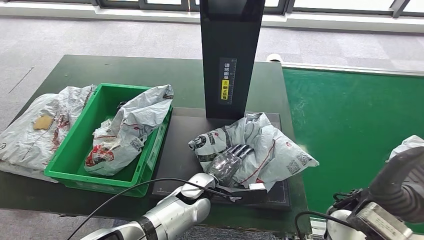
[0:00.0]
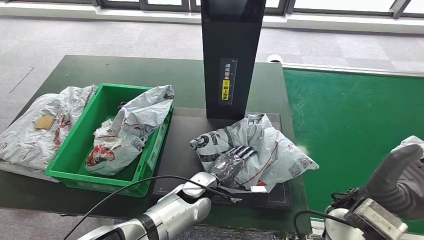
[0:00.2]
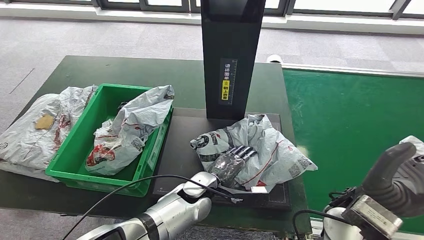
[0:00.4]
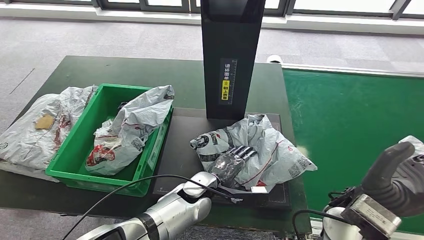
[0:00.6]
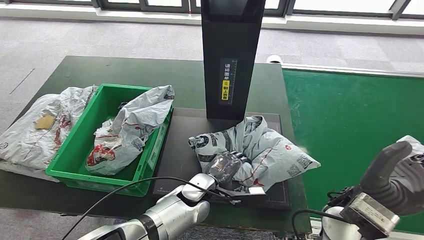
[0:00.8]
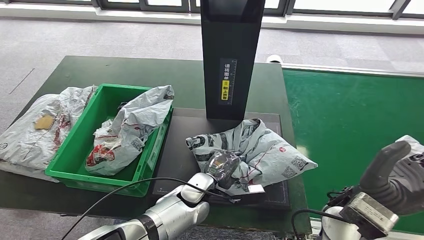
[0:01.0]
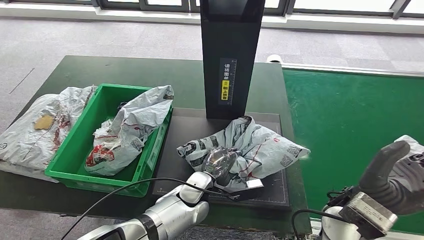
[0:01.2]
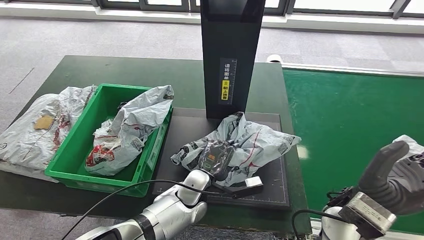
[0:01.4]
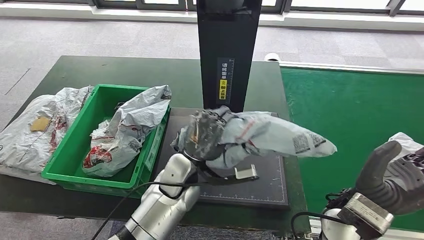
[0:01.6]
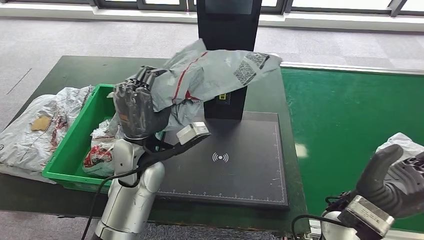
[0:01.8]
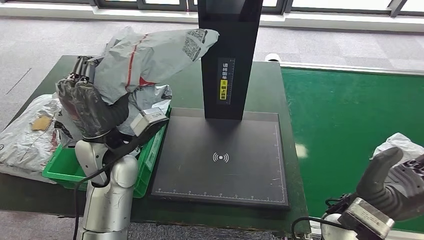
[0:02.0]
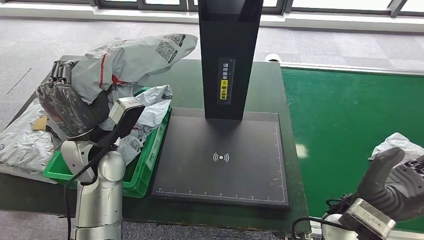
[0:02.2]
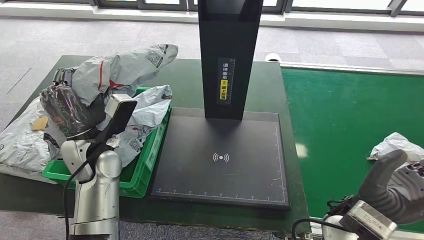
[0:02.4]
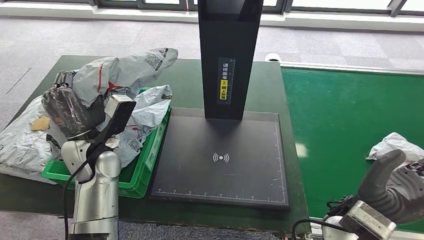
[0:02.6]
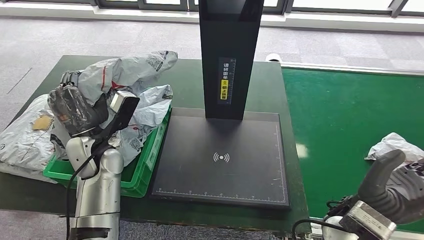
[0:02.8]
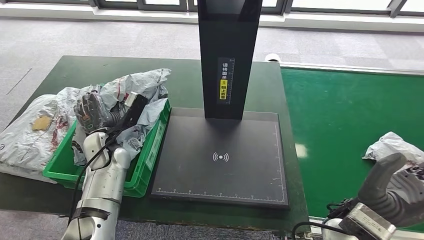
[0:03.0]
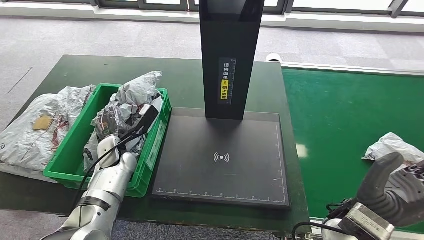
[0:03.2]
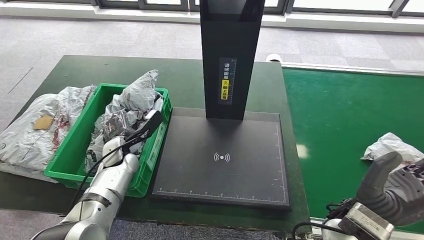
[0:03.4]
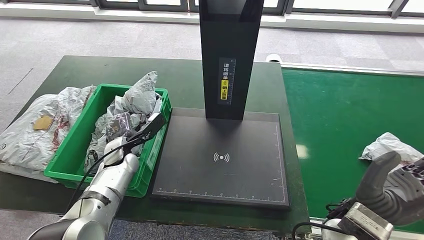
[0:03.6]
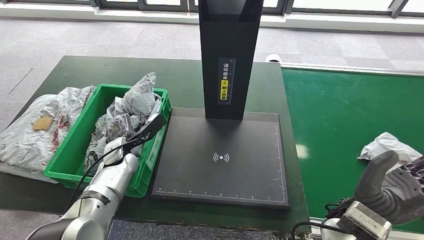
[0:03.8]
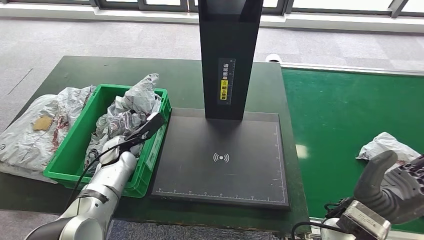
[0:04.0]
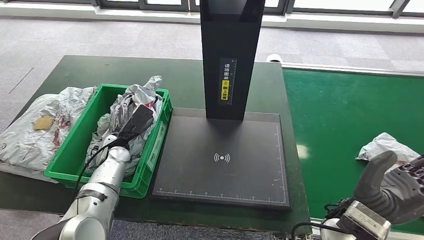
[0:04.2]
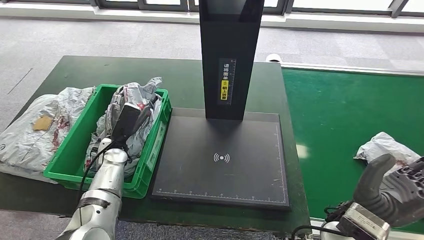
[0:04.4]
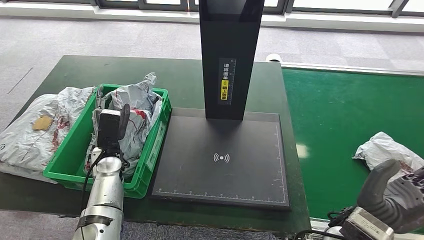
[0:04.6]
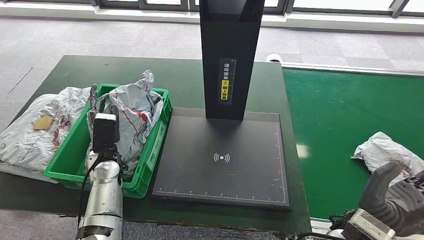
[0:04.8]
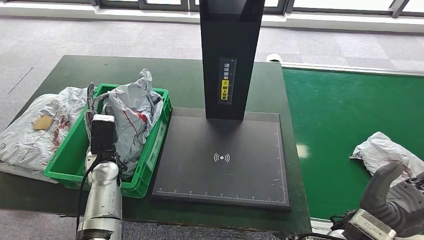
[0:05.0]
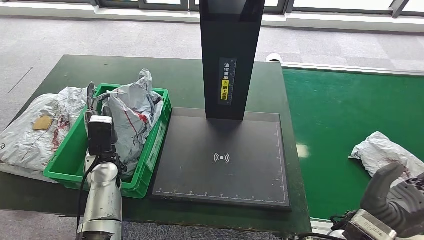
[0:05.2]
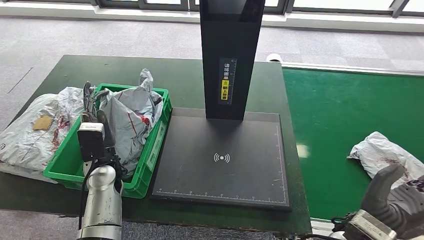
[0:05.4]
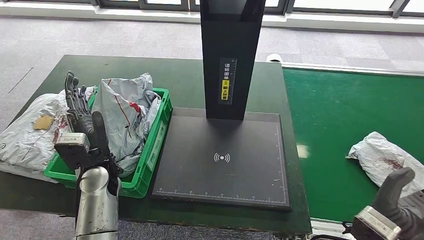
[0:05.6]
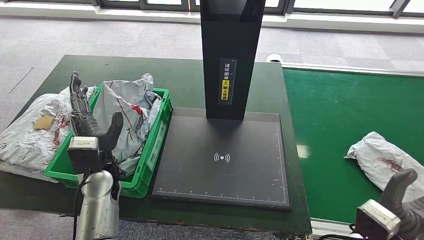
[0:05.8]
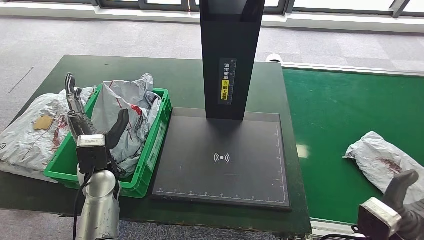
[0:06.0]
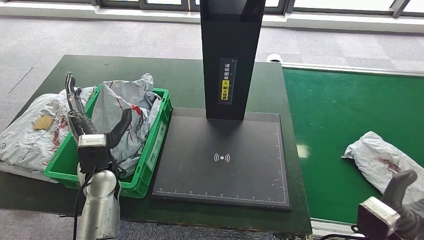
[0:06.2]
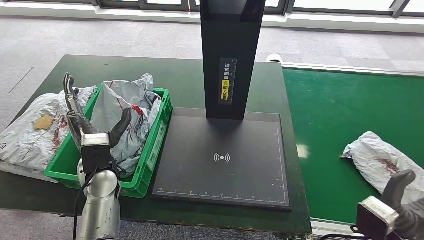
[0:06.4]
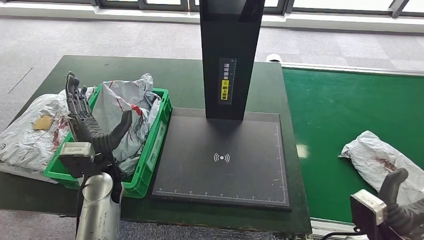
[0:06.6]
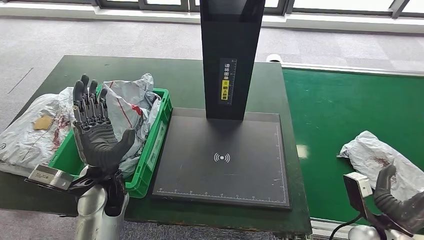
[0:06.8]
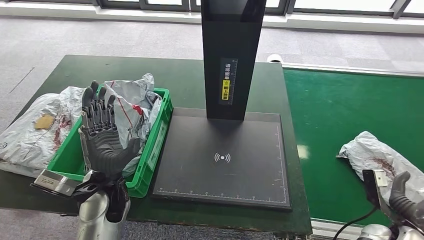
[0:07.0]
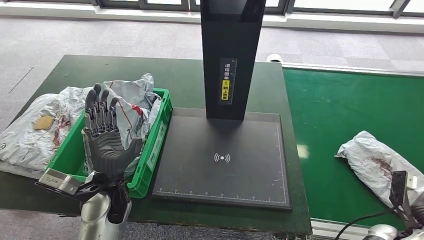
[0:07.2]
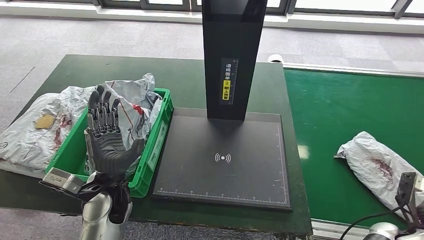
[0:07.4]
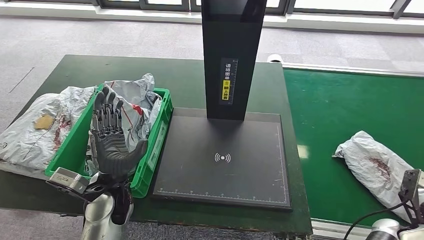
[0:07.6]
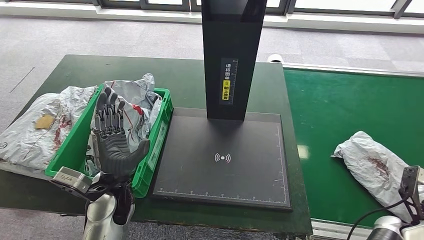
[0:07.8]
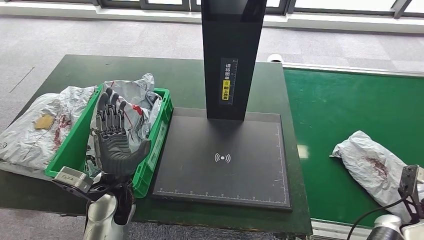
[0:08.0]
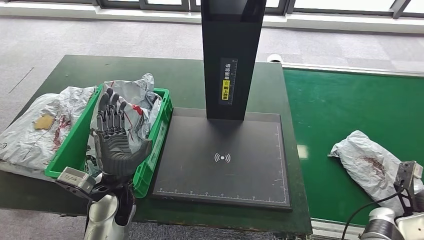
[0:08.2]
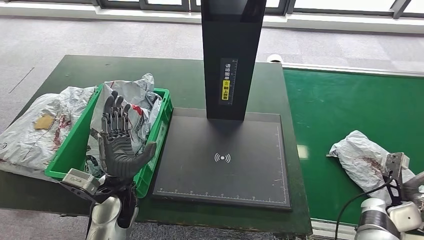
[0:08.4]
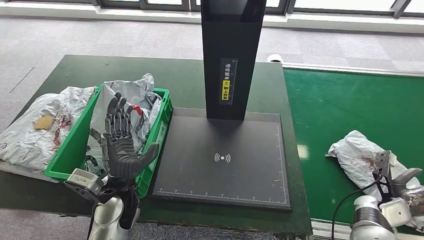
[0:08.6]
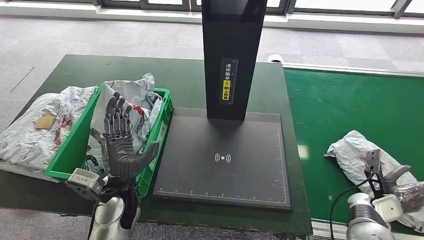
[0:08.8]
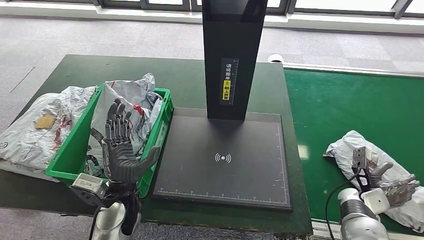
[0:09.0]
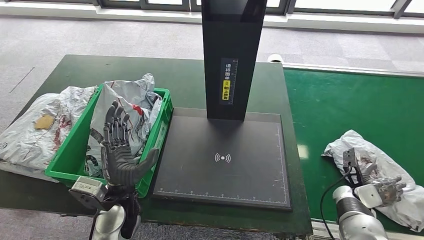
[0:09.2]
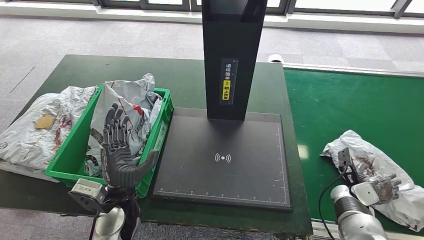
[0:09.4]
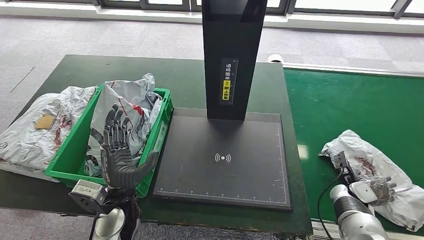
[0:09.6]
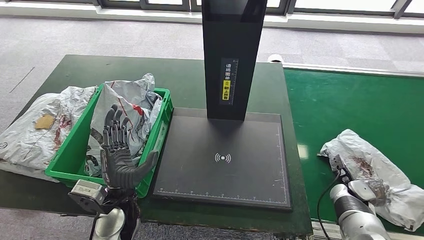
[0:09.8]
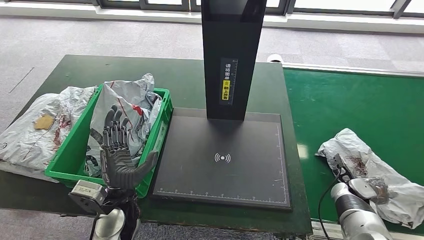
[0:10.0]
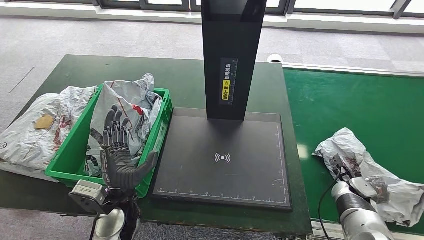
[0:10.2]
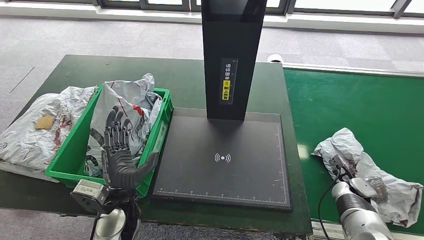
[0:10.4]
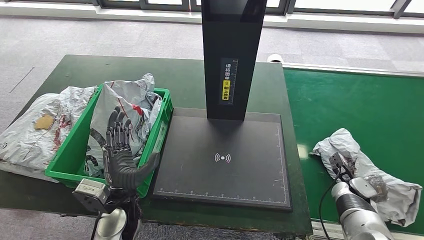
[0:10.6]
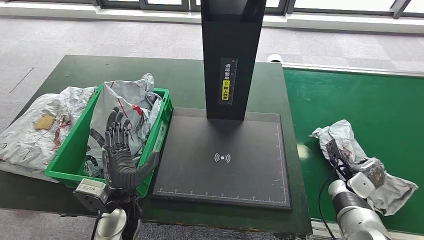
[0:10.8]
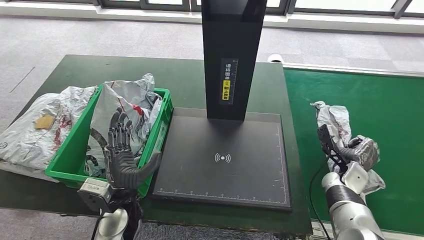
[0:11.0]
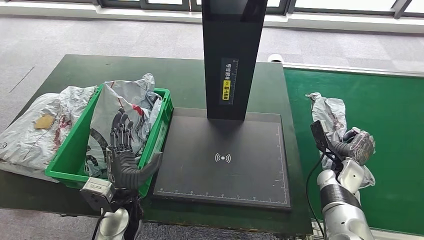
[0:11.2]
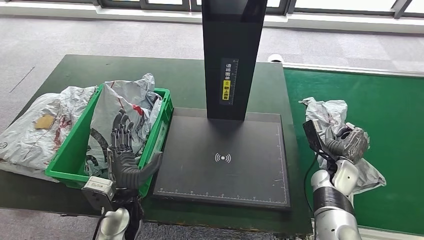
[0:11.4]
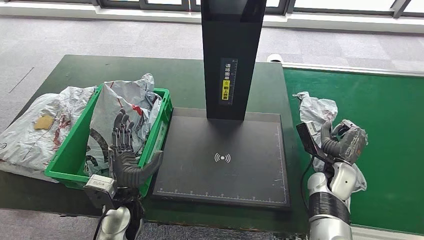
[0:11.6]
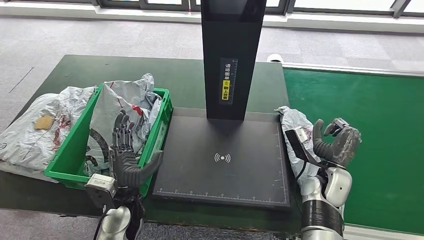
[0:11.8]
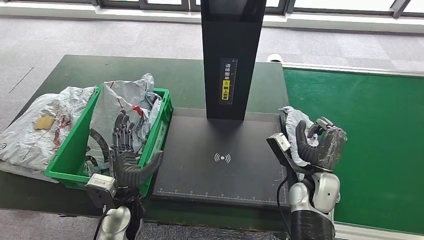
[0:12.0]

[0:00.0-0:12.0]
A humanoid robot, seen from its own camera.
Step, 0:00.0 to 0:02.0: Pick up the parcel from the inbound machine.
Step, 0:02.2 to 0:06.2: Place the parcel into the delivery box.
0:03.0 to 0:04.4: The left hand goes some 5 cm downward.
0:04.4 to 0:06.0: The right hand is displaced to the right by roughly 5 cm. Meanwhile the left hand travels backward and upward by approximately 10 cm.
0:06.0 to 0:07.6: The left hand shifts by some 5 cm. Meanwhile the right hand moves to the right and downward, some 20 cm.
0:07.6 to 0:09.0: The right hand heads forward and to the left, covering some 10 cm.
0:10.4 to 0:12.0: The right hand heads to the left and upward, covering about 20 cm.

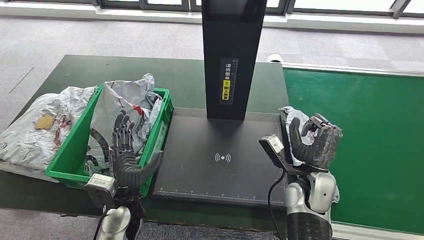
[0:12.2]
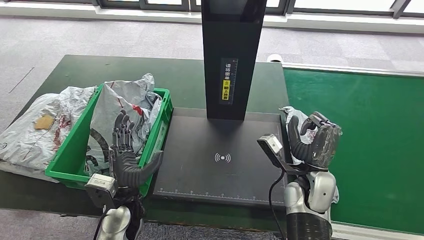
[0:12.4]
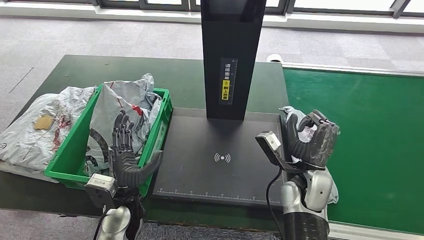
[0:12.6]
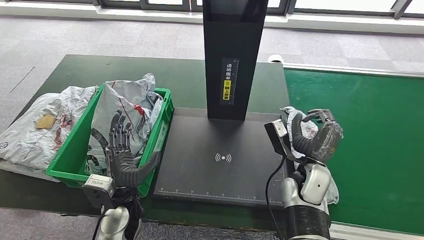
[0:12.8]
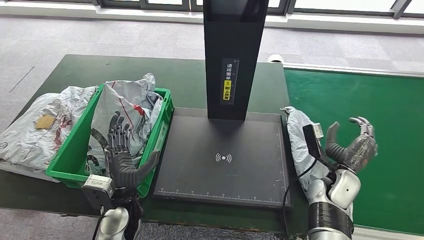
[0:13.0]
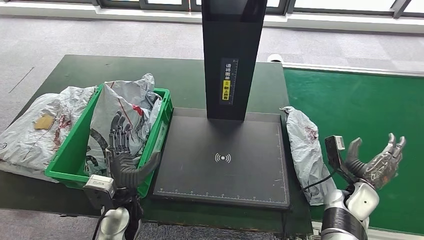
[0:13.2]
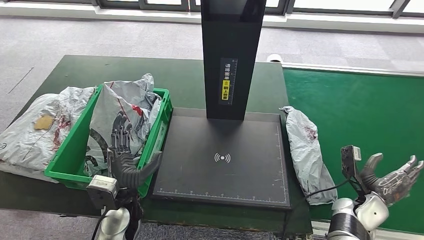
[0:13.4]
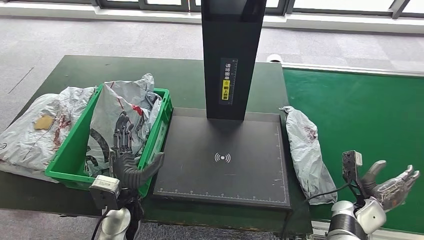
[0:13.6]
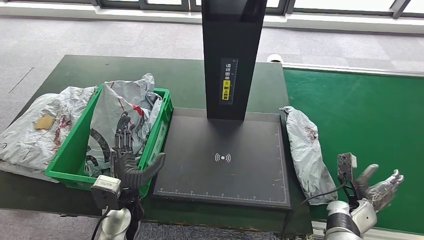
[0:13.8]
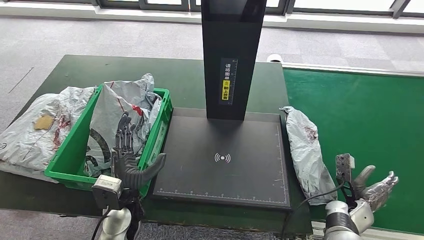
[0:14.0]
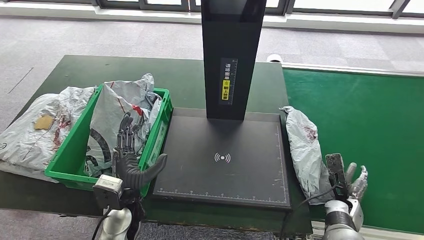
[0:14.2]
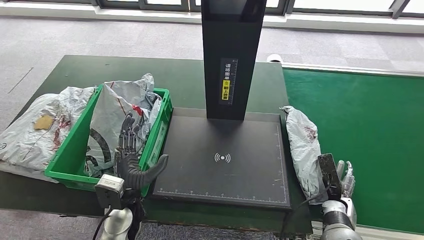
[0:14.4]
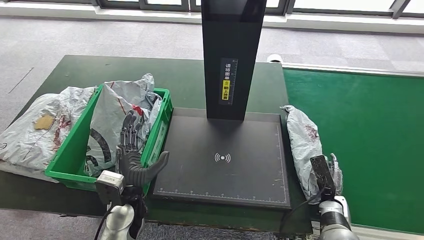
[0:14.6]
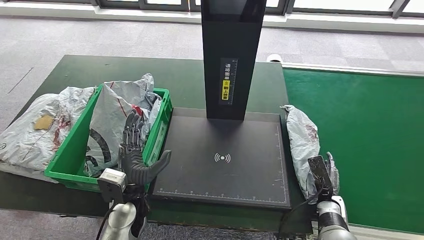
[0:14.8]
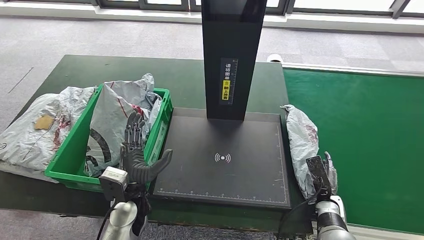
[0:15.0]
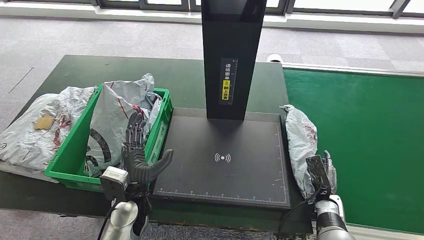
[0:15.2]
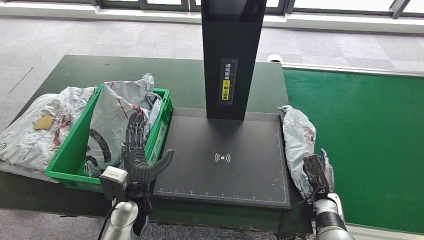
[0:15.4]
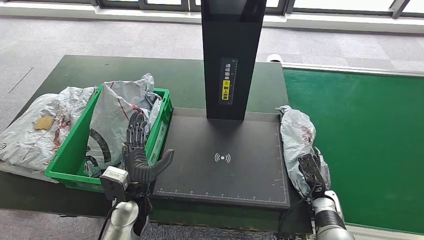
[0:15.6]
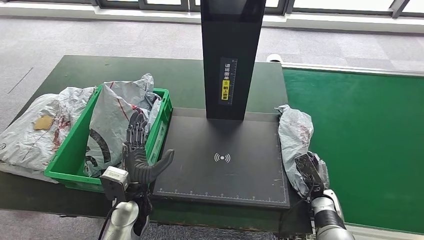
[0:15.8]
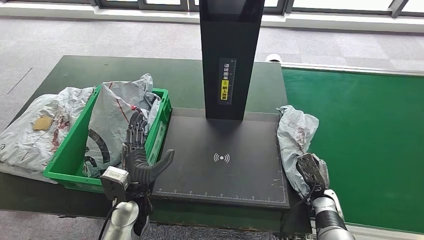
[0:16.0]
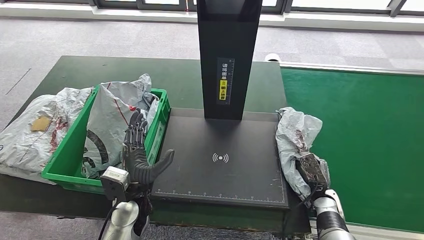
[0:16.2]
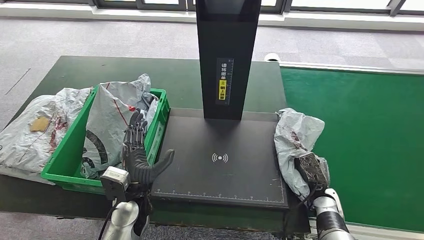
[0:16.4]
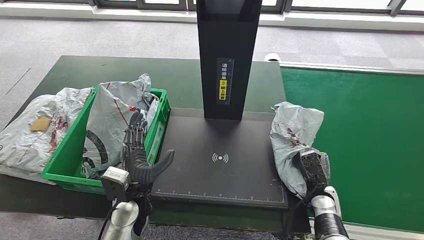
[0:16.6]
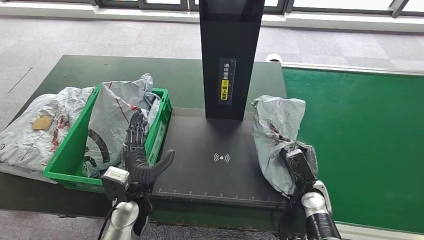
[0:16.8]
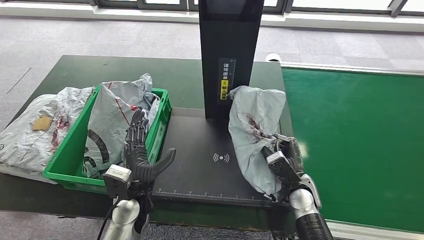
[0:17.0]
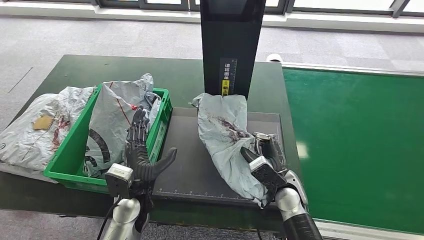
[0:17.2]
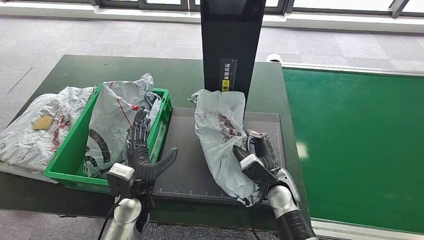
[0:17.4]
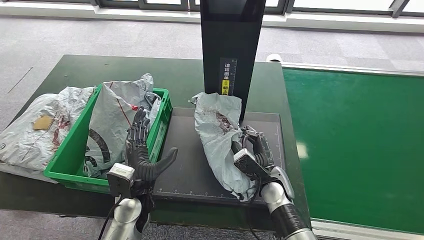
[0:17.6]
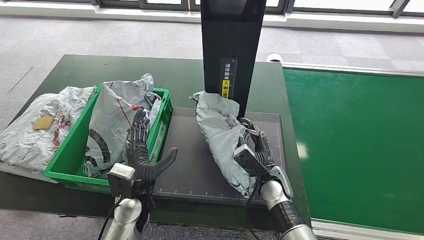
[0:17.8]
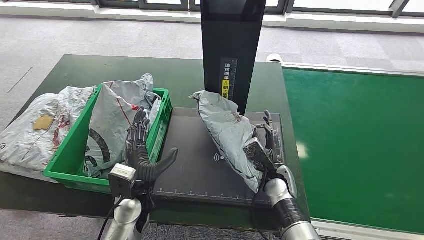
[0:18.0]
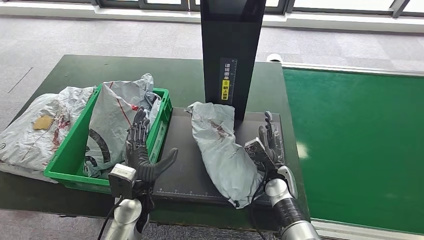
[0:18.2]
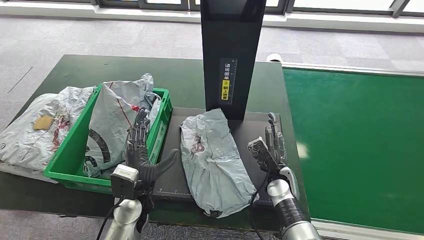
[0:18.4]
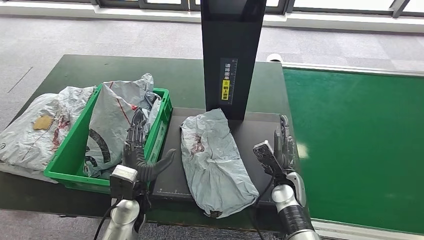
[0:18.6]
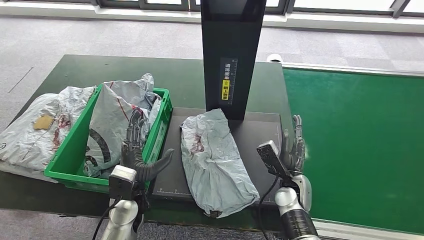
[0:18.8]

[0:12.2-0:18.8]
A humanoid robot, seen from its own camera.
Step, 0:12.2 to 0:16.8: Pick up the parcel from the conveyor belt.
0:12.2 to 0:13.8: The right hand moves to the right and downward, roughly 20 cm.
0:13.8 to 0:15.4: The right hand heads to the left, covering roughly 5 cm.
0:15.4 to 0:17.2: The right hand moves to the left and upward, approximately 15 cm.
